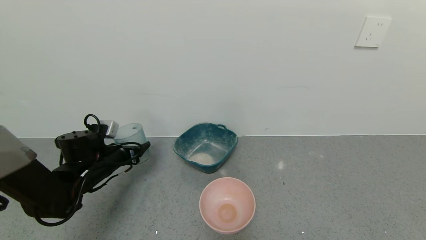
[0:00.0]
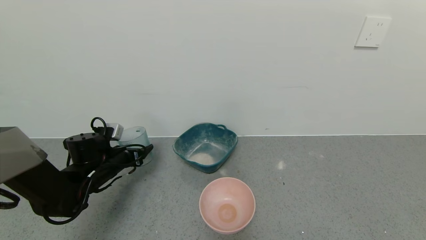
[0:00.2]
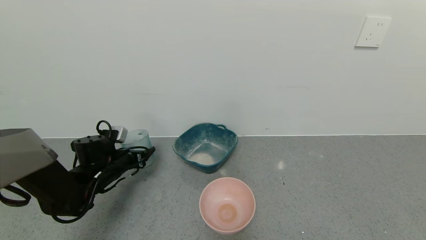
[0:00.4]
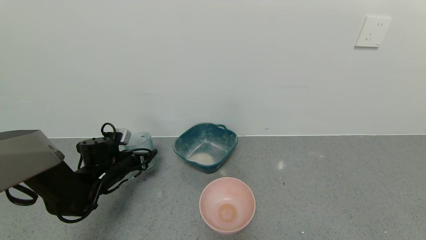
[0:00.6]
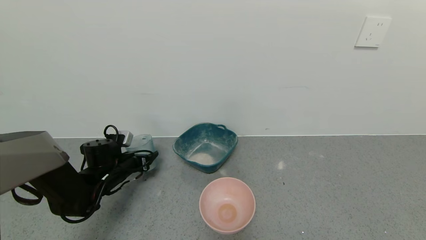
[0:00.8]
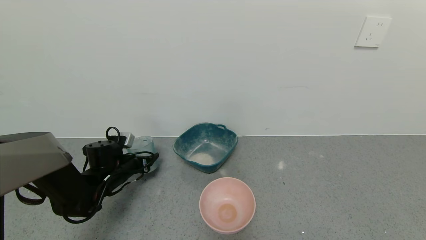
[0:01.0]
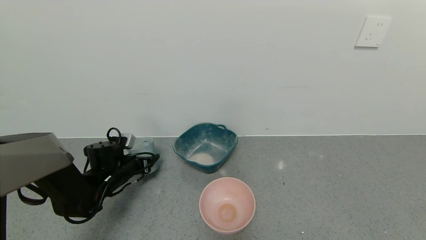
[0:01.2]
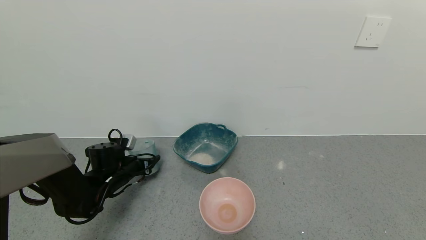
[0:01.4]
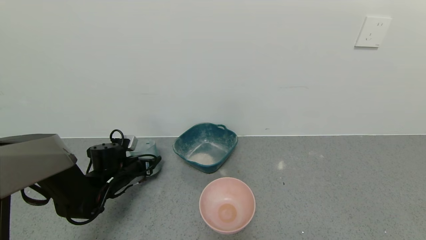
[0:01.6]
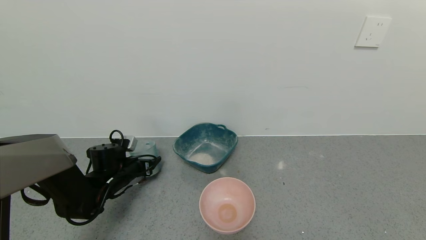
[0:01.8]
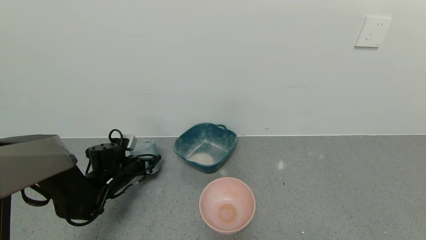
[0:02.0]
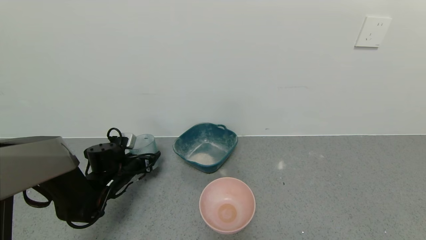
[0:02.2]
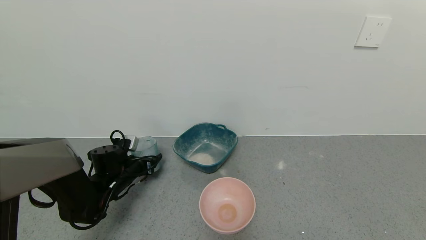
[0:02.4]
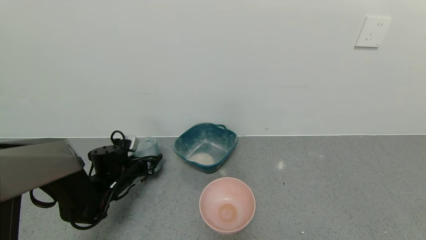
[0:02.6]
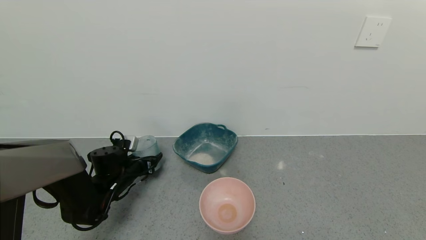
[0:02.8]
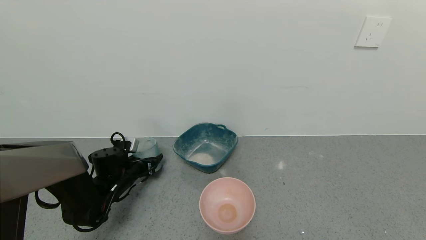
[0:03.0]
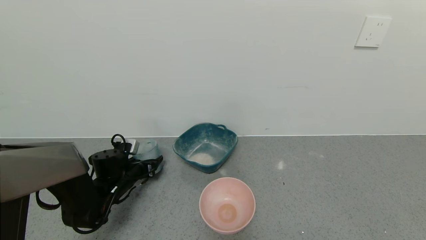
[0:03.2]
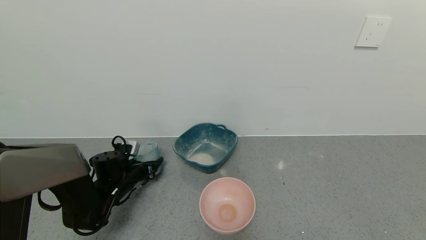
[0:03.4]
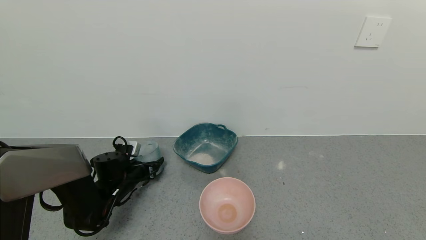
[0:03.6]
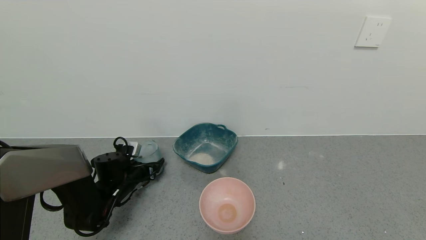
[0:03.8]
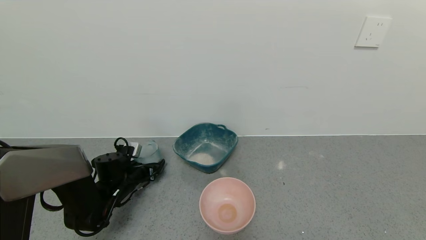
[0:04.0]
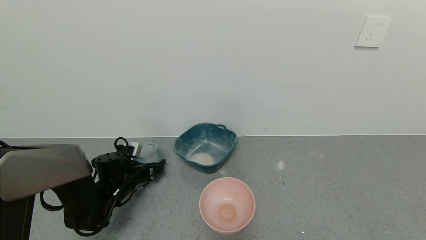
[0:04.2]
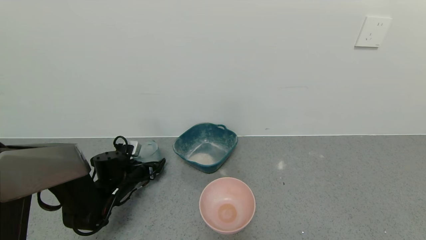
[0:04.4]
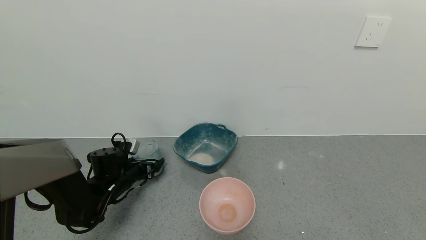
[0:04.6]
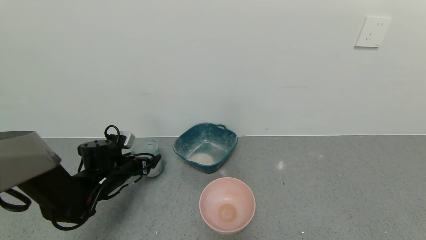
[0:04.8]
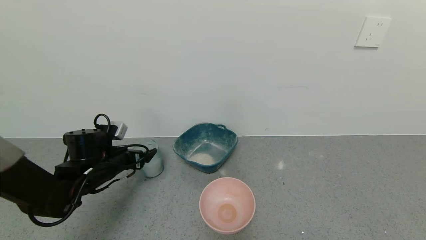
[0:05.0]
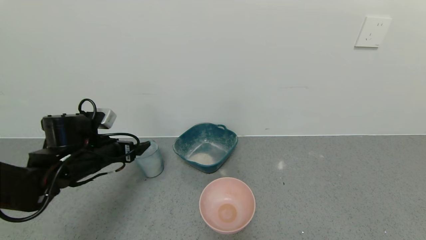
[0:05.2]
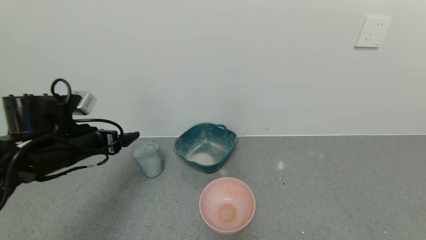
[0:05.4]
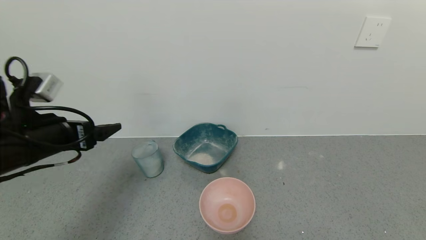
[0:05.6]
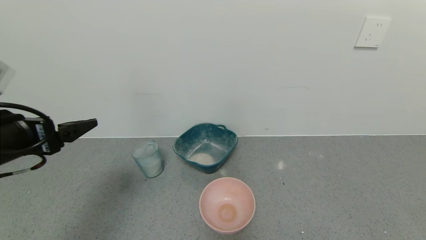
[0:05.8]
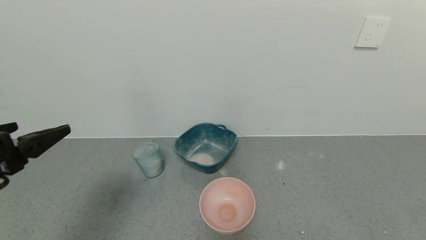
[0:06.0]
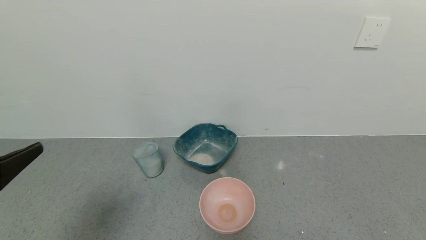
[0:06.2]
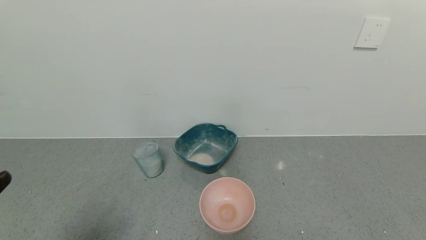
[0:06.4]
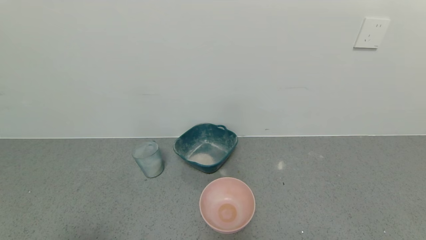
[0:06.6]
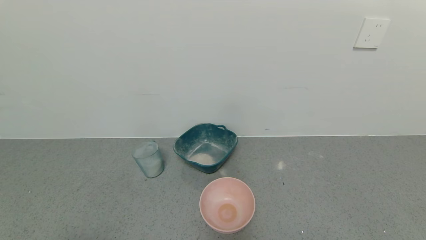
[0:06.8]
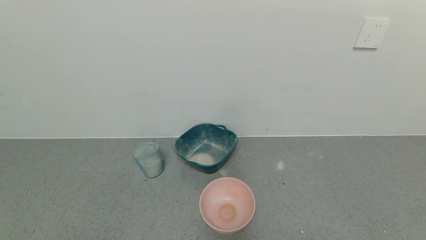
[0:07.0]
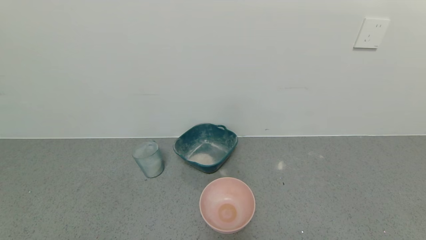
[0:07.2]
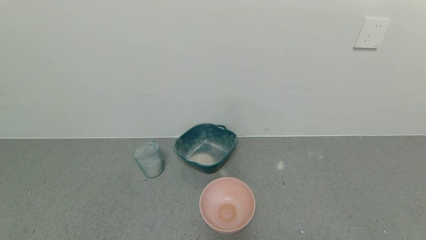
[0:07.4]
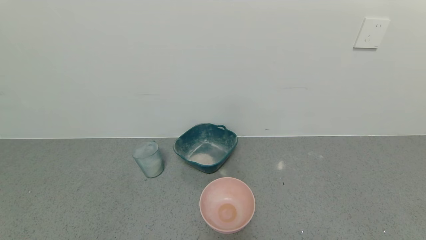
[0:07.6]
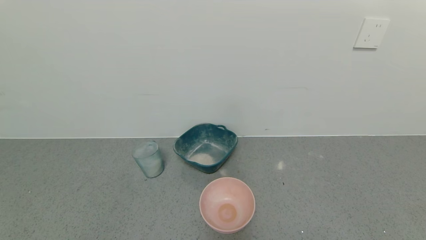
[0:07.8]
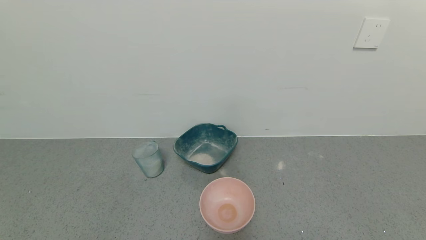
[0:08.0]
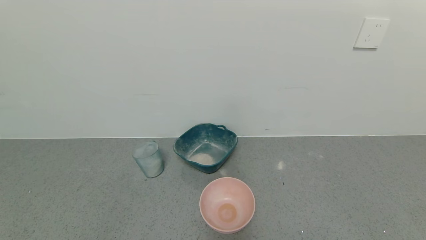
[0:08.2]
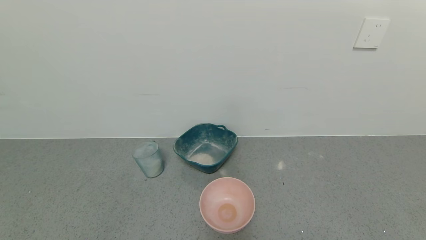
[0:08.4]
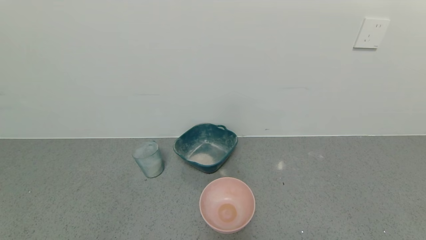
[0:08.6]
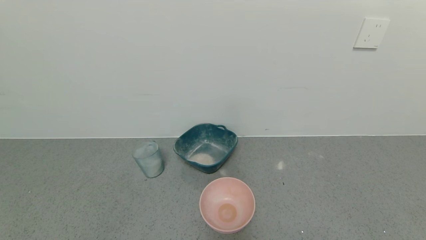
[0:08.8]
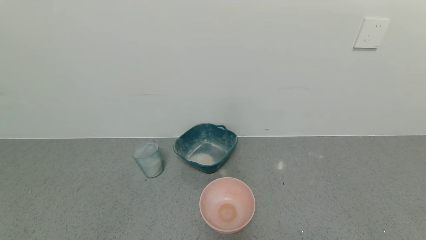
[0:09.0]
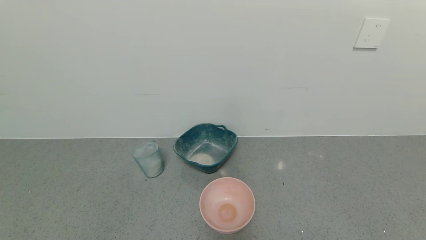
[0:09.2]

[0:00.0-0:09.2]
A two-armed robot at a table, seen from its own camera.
Task of the whole recording: use a gripper to pick up the cup and pour the powder into a bowl or tray.
Step, 0:00.0 to 0:05.0: Place the glass cup down with the left gripper.
0:00.0 to 0:01.6: The left gripper moves downward, some 5 cm.
0:01.6 to 0:03.0: The grippers stay close to where they were, moving slightly.
0:03.0 to 0:04.6: The left gripper opens up.
0:04.6 to 0:06.2: The left gripper heads backward and upward, covering about 35 cm.
0:06.2 to 0:07.6: The left gripper moves backward and downward, approximately 15 cm.
